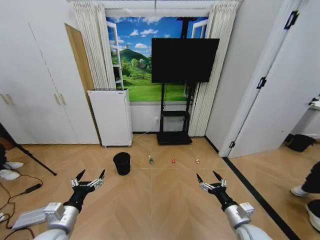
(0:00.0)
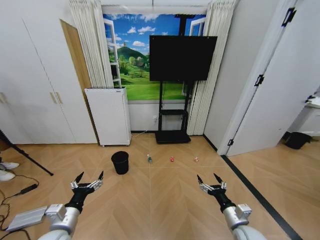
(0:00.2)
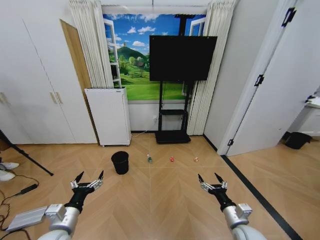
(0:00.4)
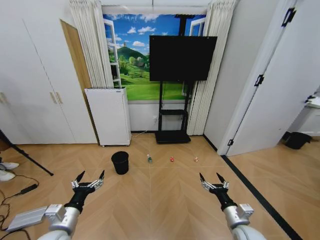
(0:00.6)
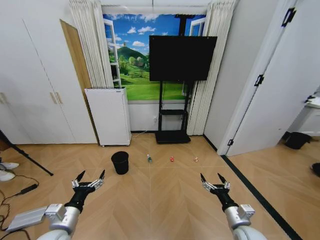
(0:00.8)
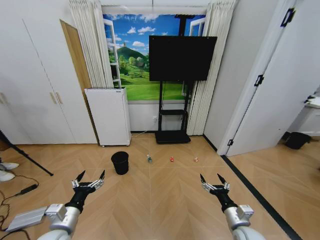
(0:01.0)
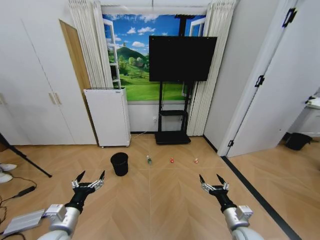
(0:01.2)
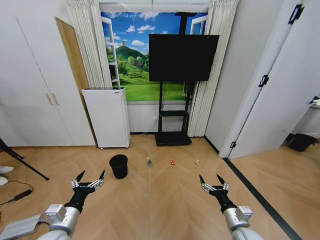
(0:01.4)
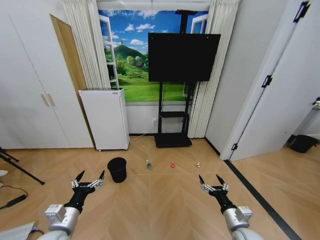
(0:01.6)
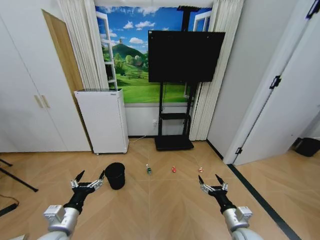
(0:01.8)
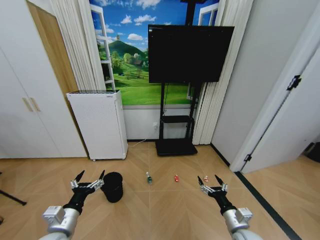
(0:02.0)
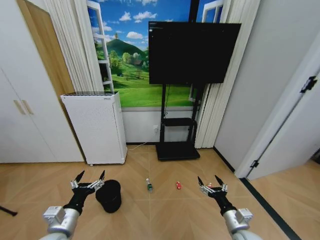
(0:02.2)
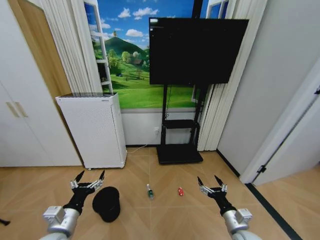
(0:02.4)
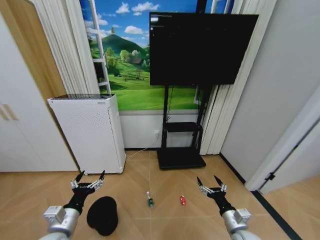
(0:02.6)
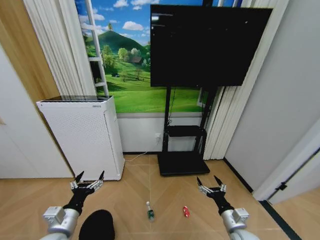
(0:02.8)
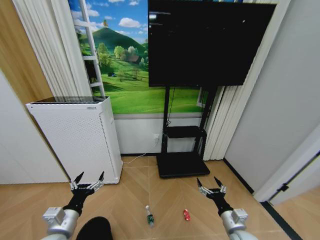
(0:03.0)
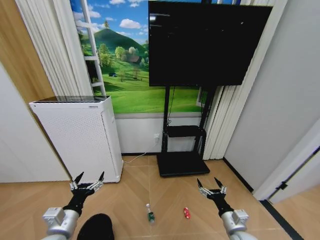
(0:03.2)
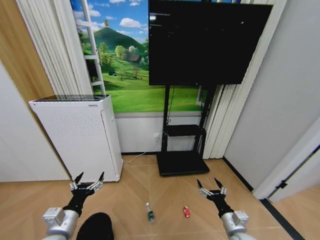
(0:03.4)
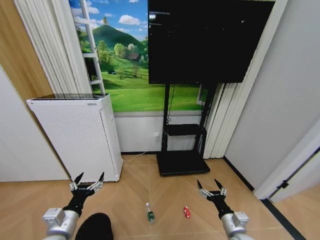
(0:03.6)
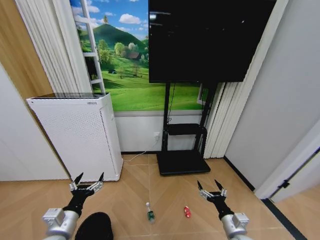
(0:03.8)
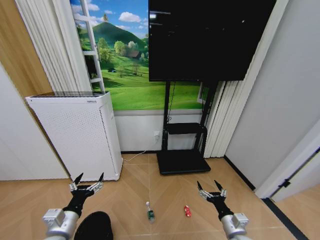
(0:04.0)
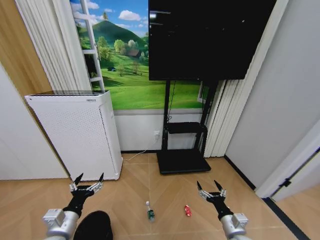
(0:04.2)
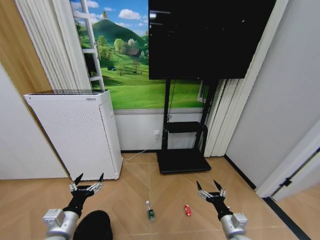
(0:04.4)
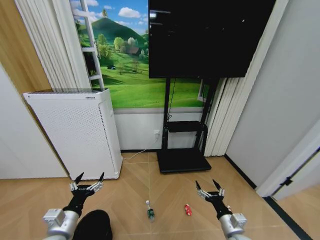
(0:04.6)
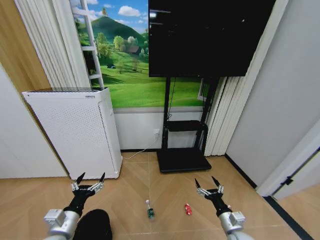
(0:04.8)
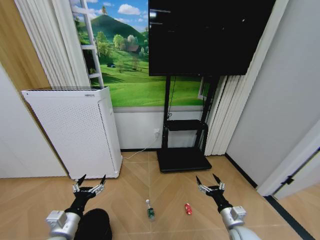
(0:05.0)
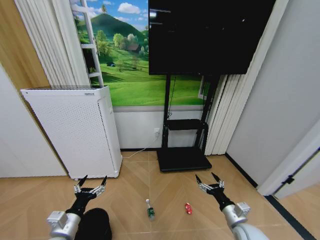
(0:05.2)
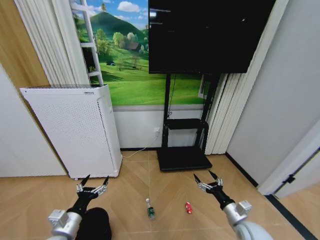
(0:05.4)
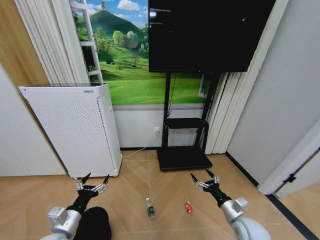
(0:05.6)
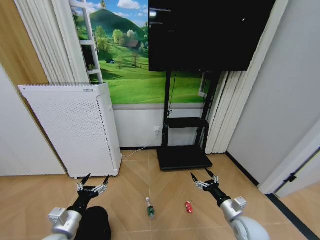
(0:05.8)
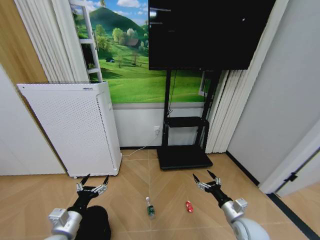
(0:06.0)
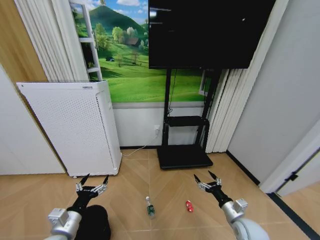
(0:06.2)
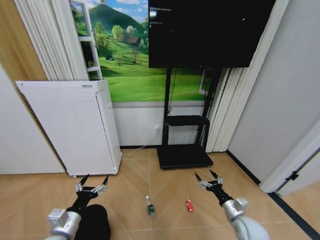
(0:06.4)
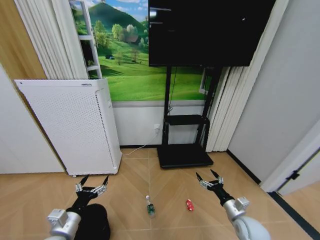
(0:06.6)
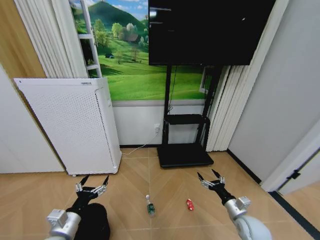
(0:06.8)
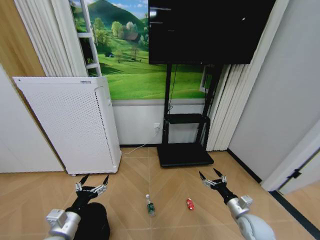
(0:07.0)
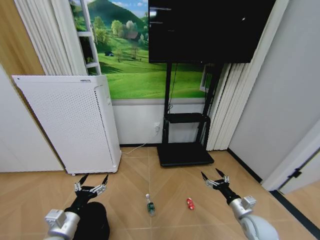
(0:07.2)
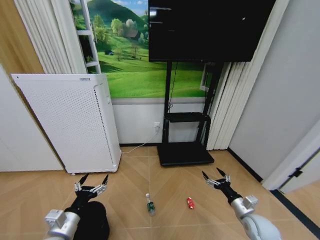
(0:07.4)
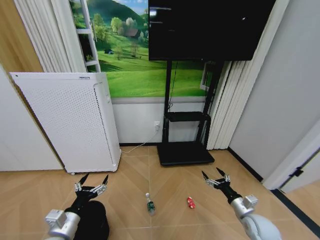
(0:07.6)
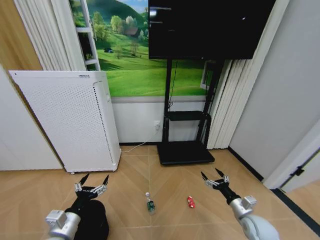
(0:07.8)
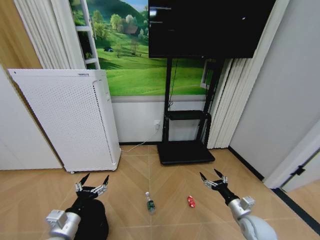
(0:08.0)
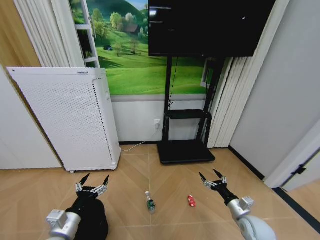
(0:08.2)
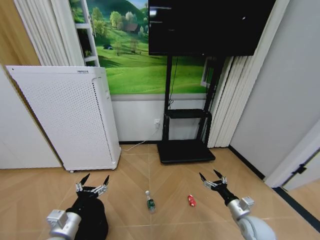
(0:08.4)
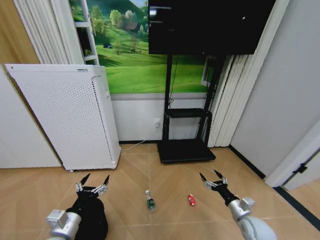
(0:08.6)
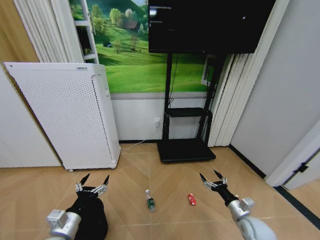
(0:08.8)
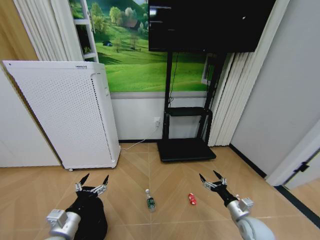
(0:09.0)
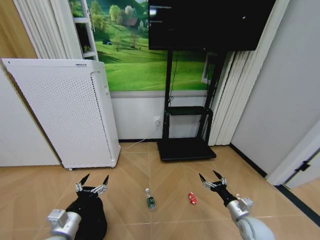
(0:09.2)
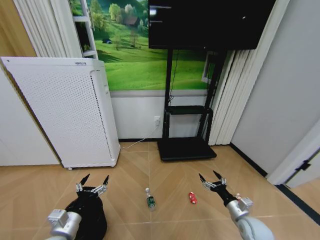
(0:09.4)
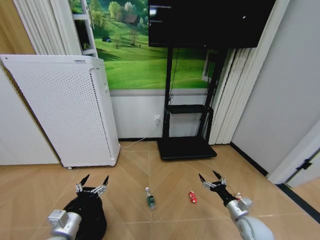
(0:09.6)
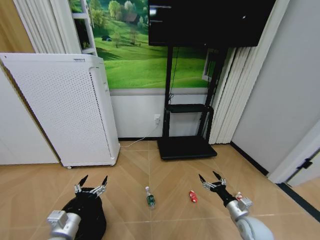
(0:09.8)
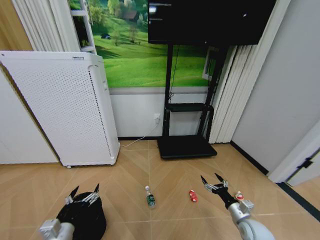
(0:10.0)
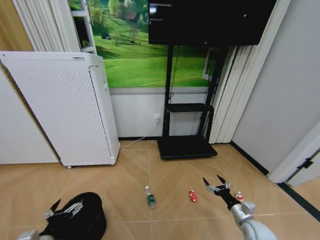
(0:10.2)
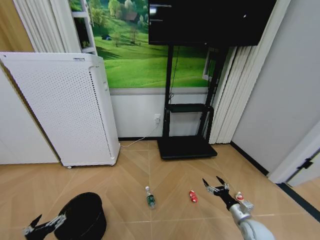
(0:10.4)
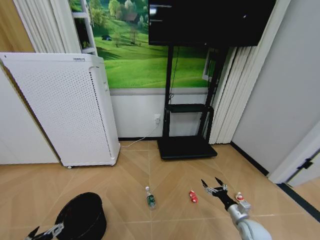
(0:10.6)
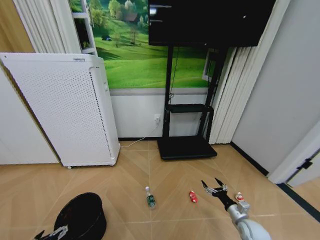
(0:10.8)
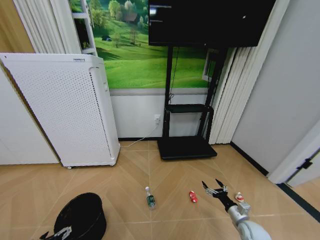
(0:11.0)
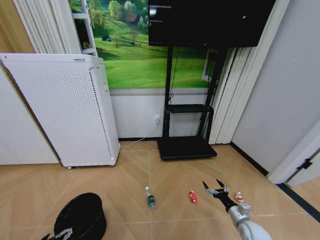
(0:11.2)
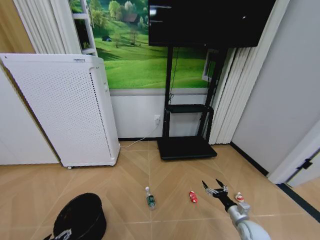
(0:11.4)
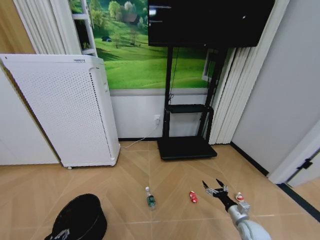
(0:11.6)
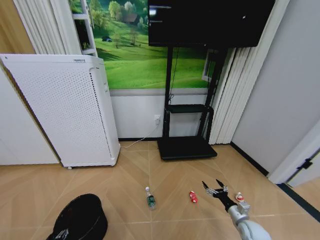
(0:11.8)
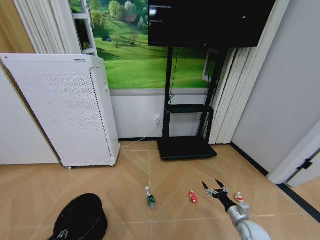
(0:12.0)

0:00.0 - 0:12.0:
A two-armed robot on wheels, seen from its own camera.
Task of the whole recording: Pick up the trash bin and place the garbage on the floor into it.
0:03.0 - 0:04.4: The grippers stay close to where they were, moving slightly.
0:04.4 - 0:06.0: The right gripper changes place by roughly 5 cm.
0:06.0 - 0:07.6: The right gripper ends up some 5 cm from where it was.
0:07.6 - 0:09.0: There are only small adjustments of the grippers.
0:09.0 - 0:10.4: The left gripper goes some 10 cm to the left and backward.
0:10.4 - 0:12.0: The left gripper heads downward, covering roughly 10 cm, and closes up.

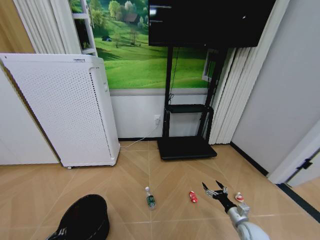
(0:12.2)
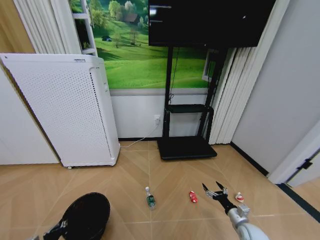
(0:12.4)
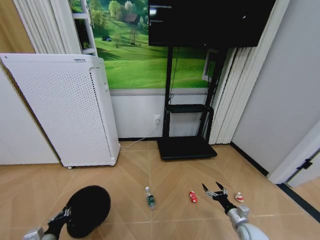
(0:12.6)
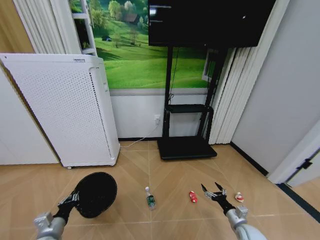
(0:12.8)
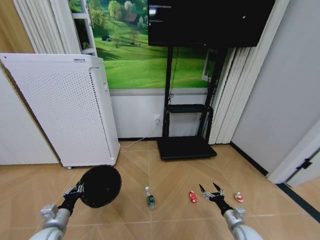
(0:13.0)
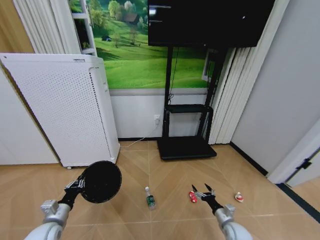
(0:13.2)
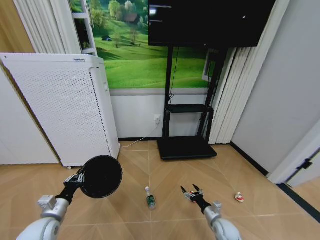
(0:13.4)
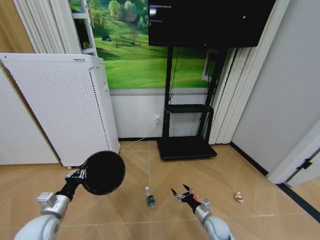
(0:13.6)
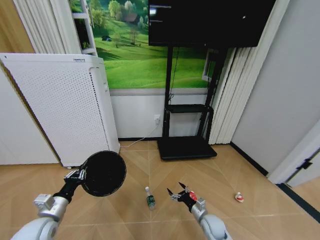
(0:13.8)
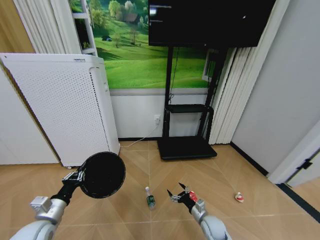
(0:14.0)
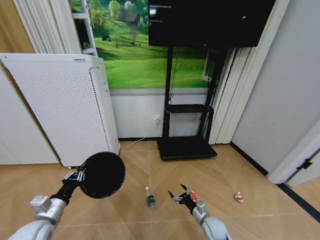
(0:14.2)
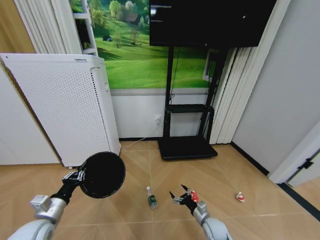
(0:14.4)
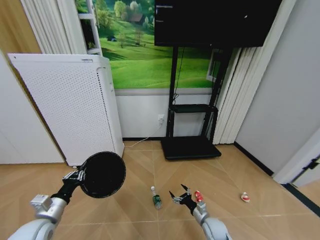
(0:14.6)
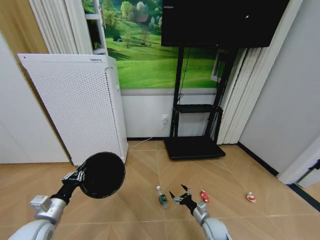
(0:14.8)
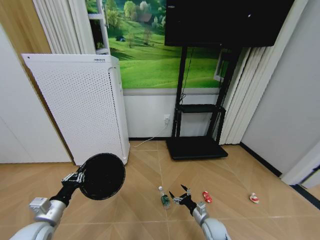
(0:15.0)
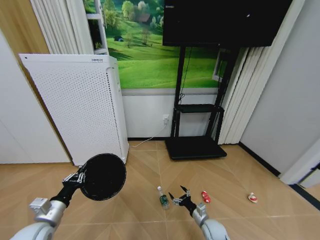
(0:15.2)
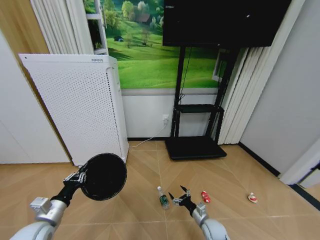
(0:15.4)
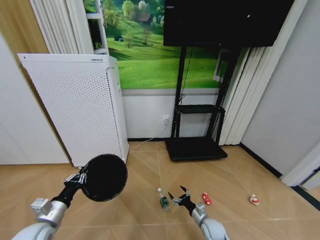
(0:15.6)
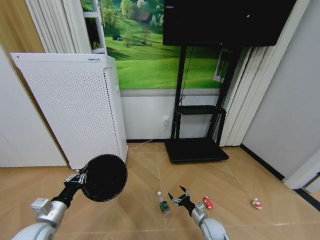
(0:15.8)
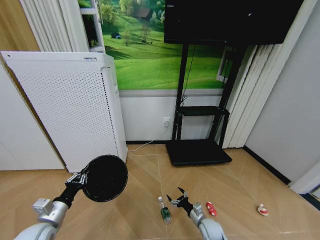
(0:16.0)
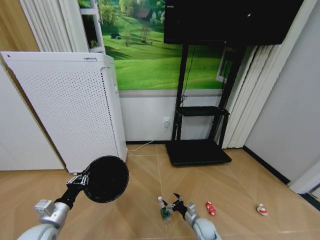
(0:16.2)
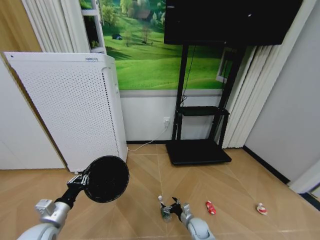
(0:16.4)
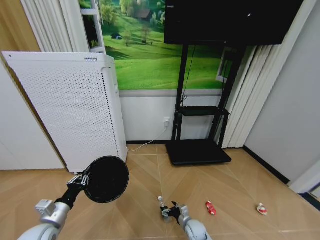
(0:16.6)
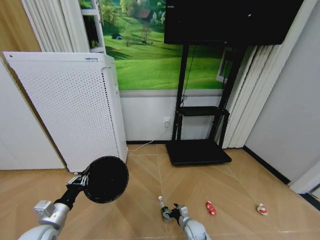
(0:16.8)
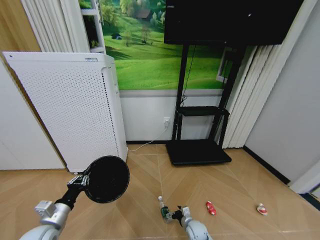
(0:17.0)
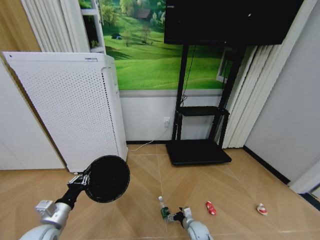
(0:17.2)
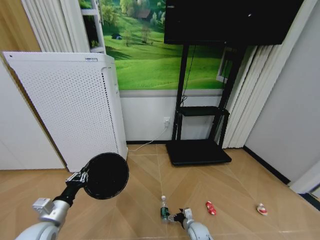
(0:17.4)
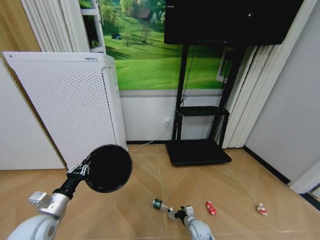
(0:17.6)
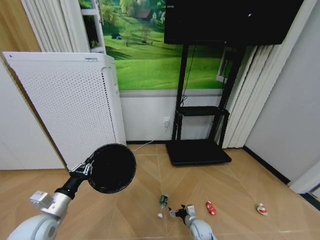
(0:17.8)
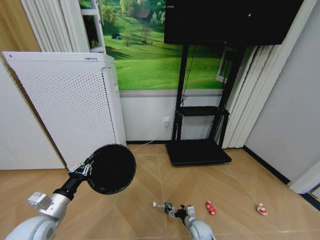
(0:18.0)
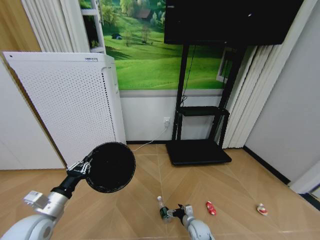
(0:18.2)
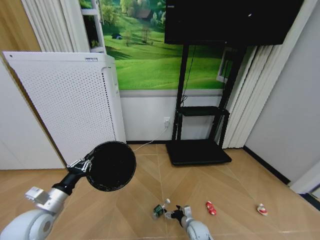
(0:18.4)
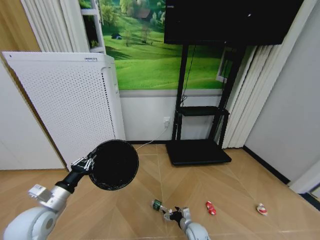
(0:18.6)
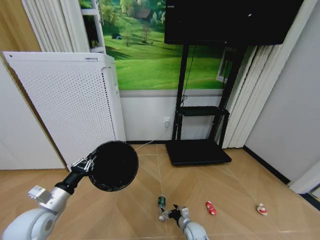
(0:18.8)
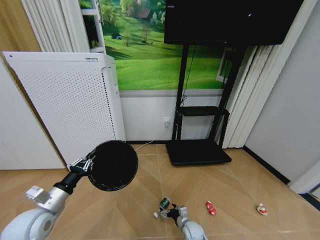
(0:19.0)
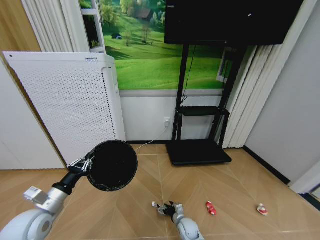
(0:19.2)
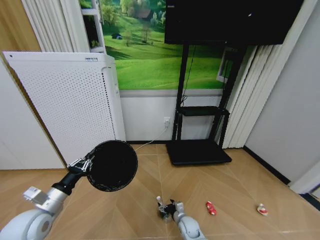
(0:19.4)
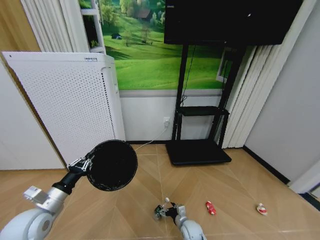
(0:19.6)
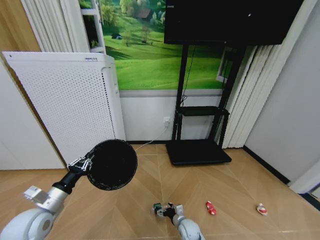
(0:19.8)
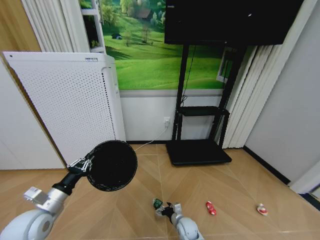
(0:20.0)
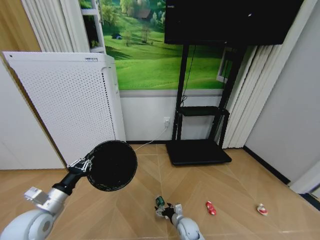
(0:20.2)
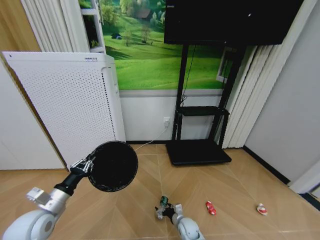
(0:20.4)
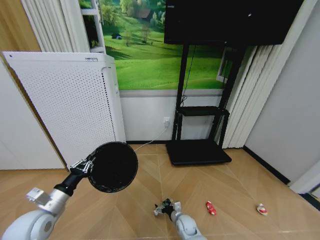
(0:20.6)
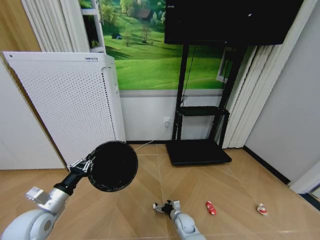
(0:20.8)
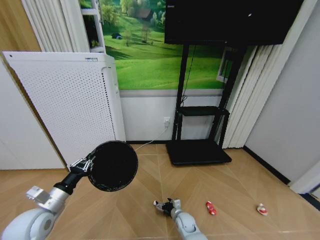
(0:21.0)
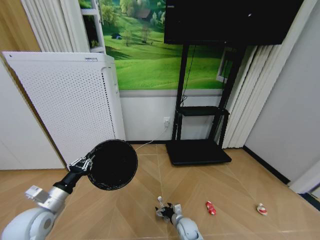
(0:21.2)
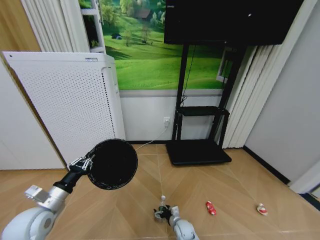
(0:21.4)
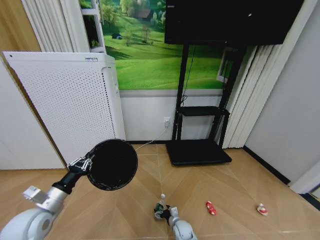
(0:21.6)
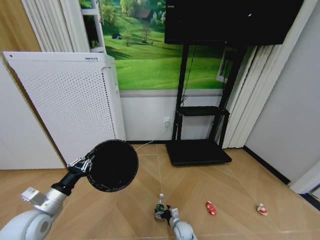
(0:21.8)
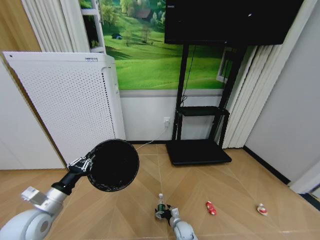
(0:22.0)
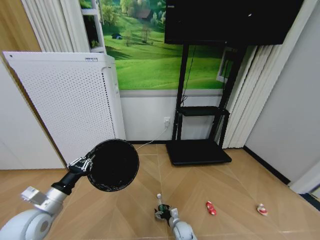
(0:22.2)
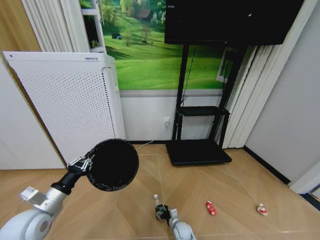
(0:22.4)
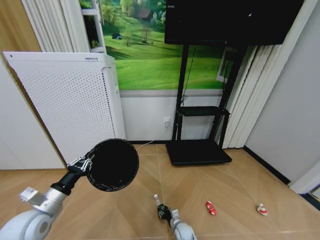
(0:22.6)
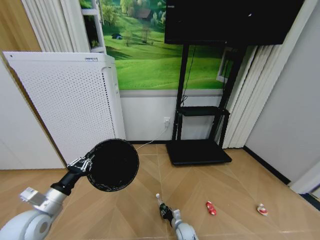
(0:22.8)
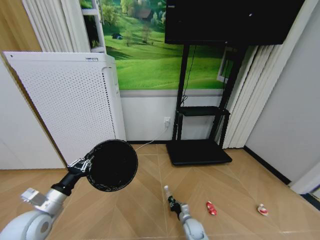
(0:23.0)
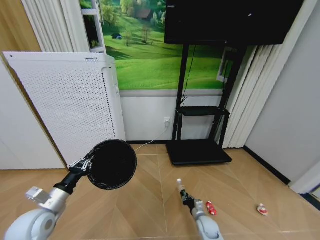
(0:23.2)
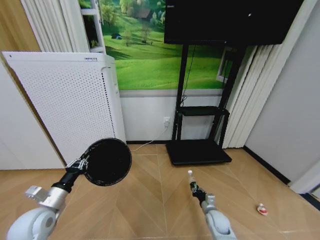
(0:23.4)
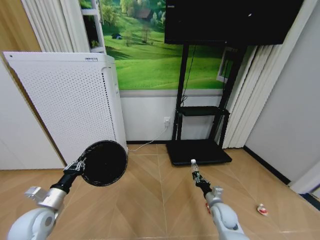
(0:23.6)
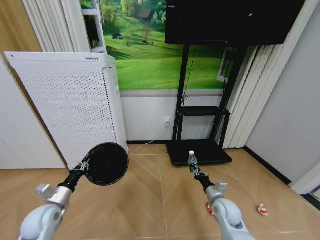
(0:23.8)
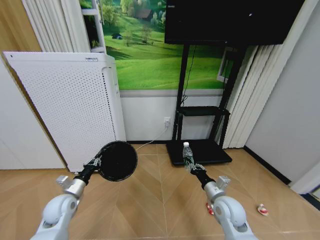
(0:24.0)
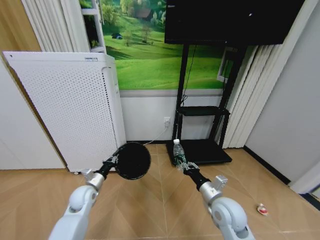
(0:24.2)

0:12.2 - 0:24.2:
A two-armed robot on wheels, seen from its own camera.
Task of the whole recording: Pick up the trash bin and place the garbage on the floor into it.
0:12.2 - 0:13.8: The right gripper shifts some 15 cm to the left. The left gripper goes about 15 cm upward and forward.
0:15.2 - 0:16.6: The right gripper is displaced to the left and downward by roughly 10 cm.
0:16.6 - 0:18.2: The left gripper shifts roughly 5 cm upward.
0:18.2 - 0:19.8: The grippers make only small movements.
0:19.8 - 0:21.2: The grippers move only a little.
0:21.2 - 0:22.6: The right gripper is displaced downward by some 5 cm, and closes up.
0:22.6 - 0:24.2: The right gripper shifts some 35 cm upward, and closes its fingers; the left gripper is displaced forward, downward and to the right by some 20 cm.
